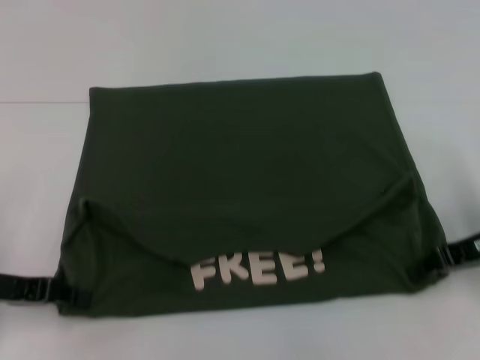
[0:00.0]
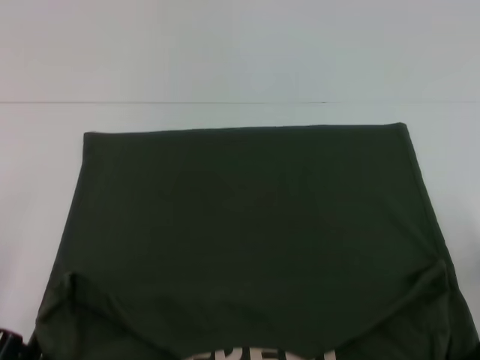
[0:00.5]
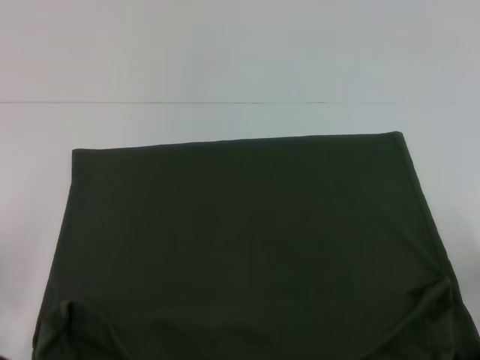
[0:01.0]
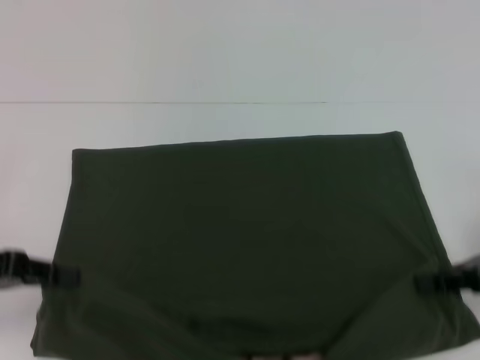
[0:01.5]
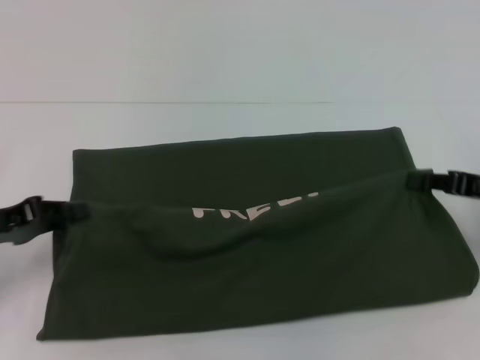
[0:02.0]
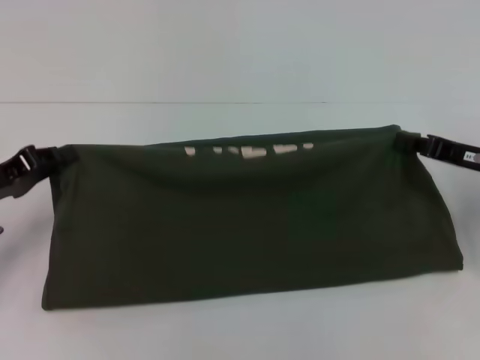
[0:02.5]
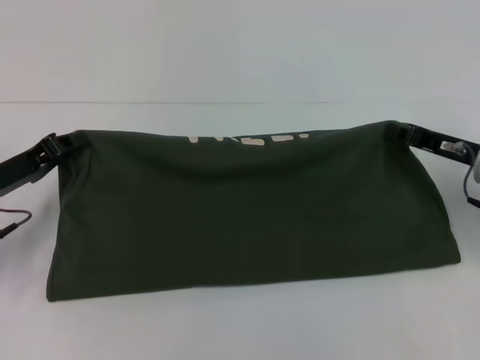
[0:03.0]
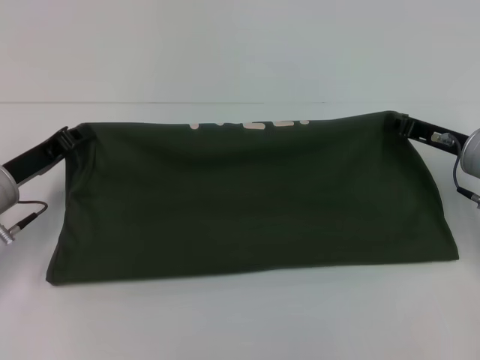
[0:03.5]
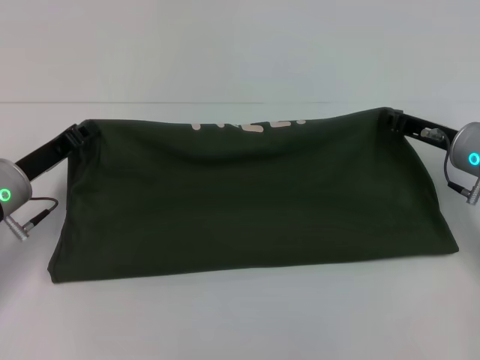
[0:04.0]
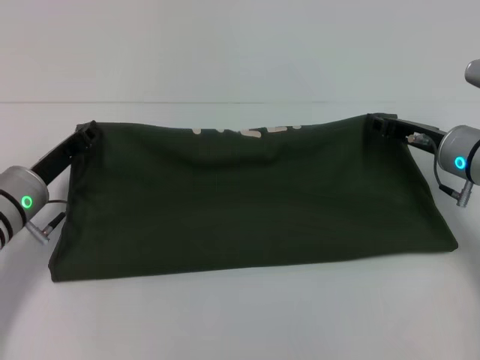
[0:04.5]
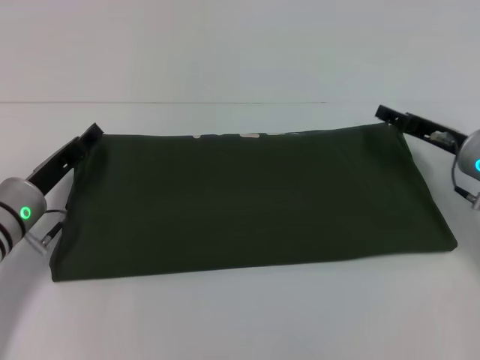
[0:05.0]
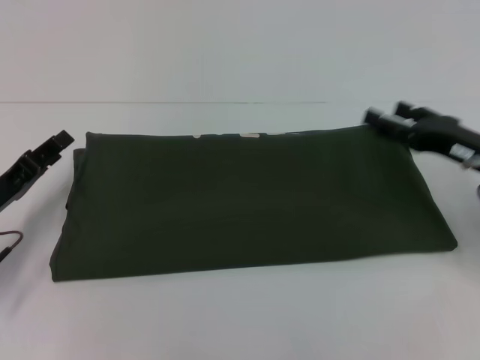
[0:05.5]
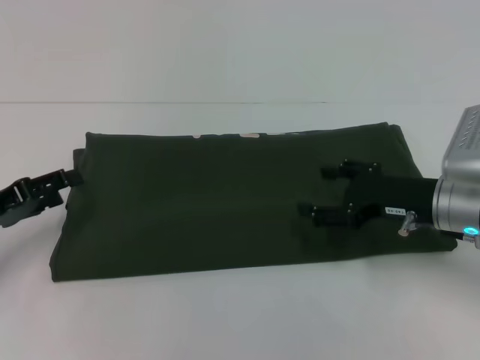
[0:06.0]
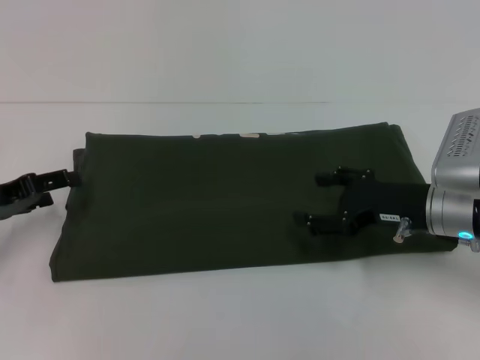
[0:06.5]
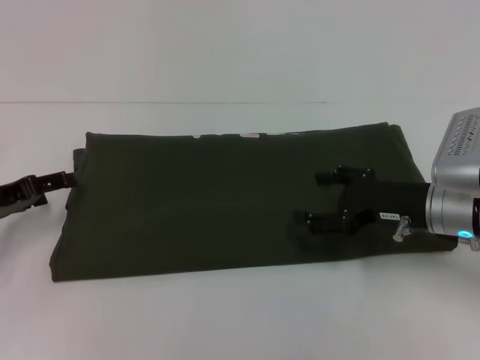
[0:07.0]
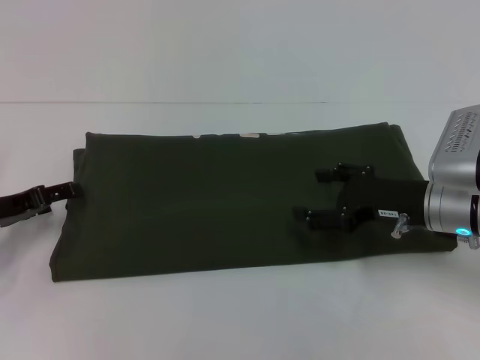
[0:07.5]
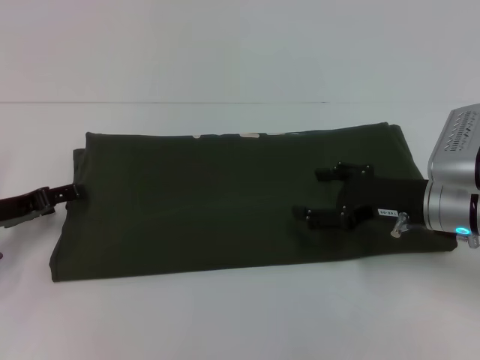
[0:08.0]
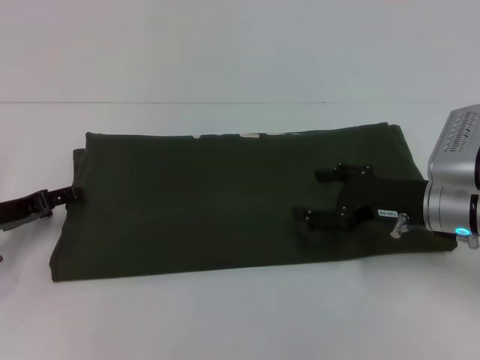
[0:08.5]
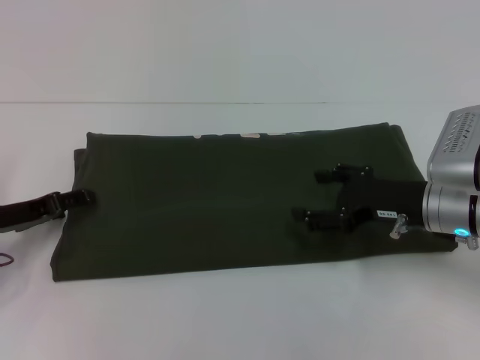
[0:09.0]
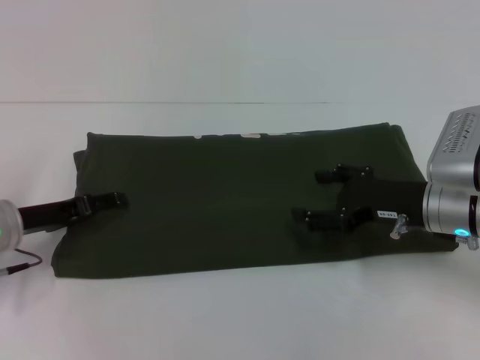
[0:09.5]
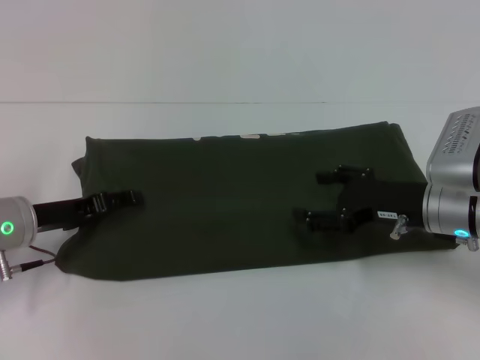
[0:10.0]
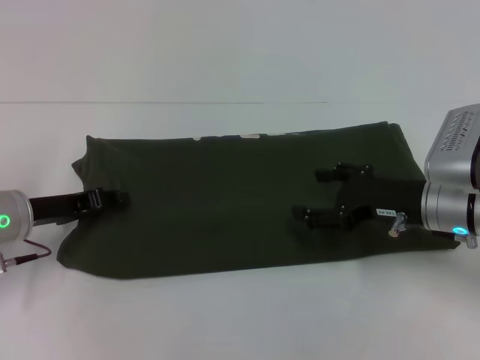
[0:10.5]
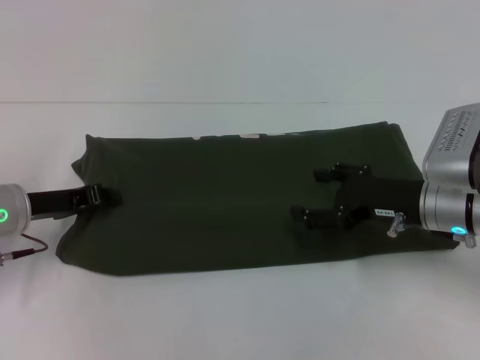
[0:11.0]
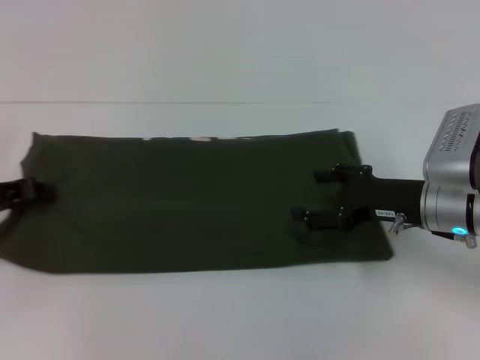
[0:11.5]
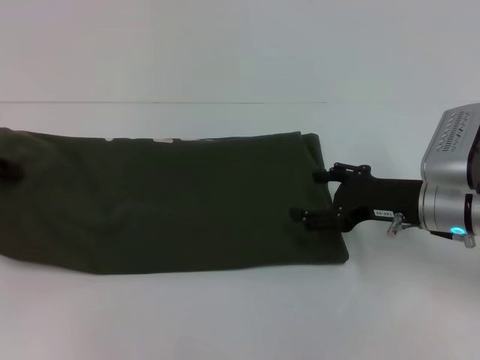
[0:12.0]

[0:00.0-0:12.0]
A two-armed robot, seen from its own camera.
Step, 0:01.5 to 0:05.0: Fold the clothes with your right hand.
0:02.0 to 0:04.0: The left gripper travels to the right and forward by some 10 cm. The right gripper is displaced to the left and forward by roughly 10 cm.
0:04.0 to 0:06.0: The right gripper goes roughly 5 cm backward, and opens its fingers. The left gripper shifts some 10 cm to the left and backward, and opens up.
0:06.0 to 0:08.0: The grippers stay close to where they were, moving slightly.
0:08.0 to 0:10.0: The left gripper heads to the right, covering about 5 cm.
0:10.0 to 0:12.0: The left gripper is displaced to the left and upward by approximately 10 cm, and closes its fingers.

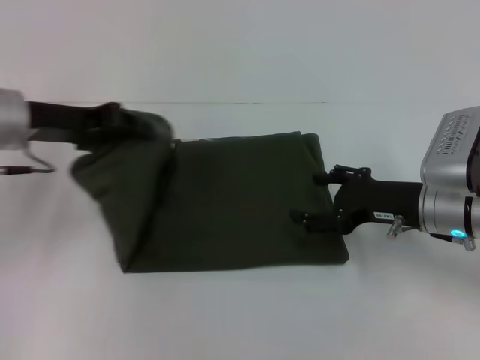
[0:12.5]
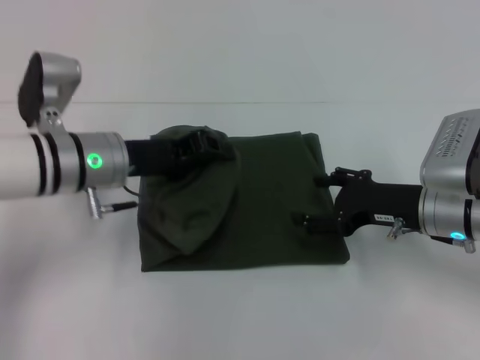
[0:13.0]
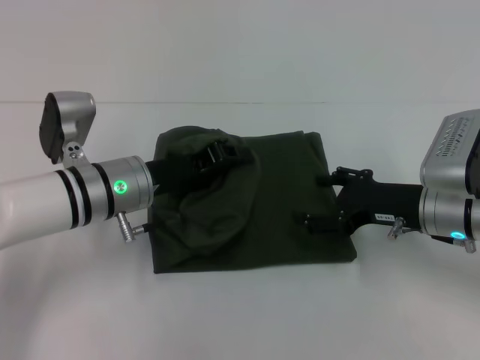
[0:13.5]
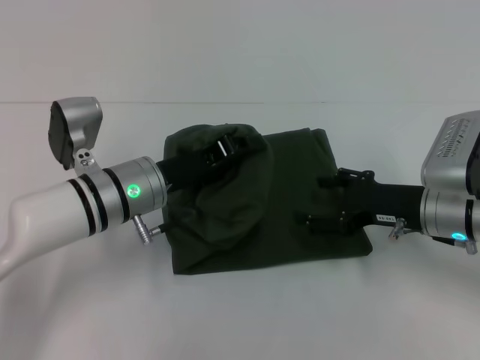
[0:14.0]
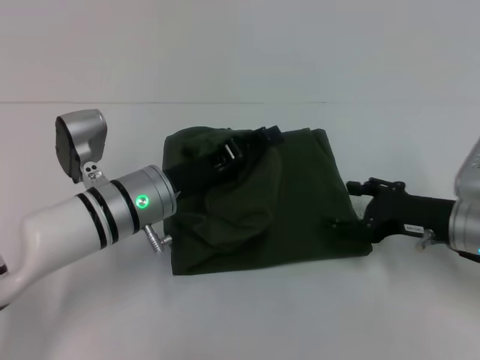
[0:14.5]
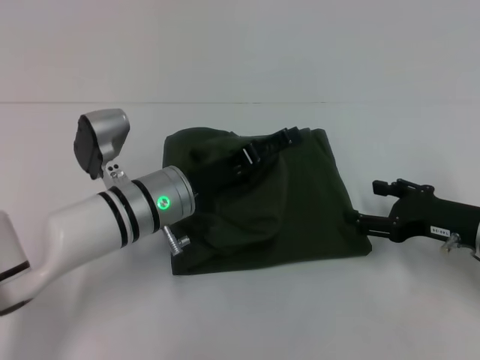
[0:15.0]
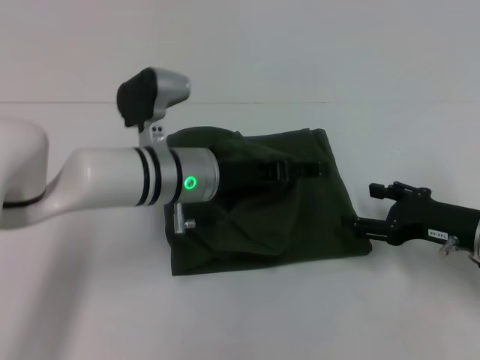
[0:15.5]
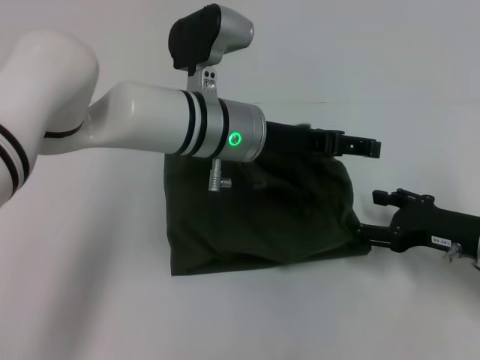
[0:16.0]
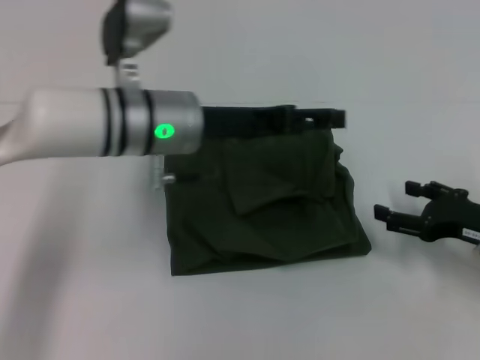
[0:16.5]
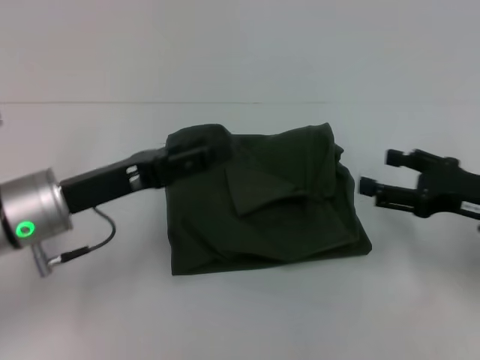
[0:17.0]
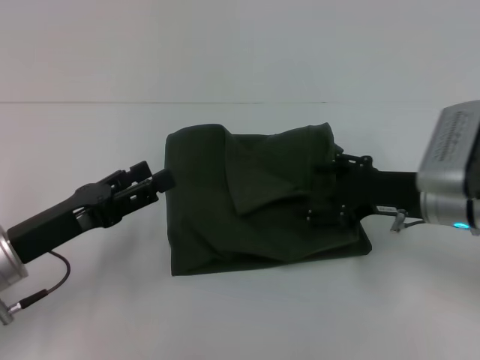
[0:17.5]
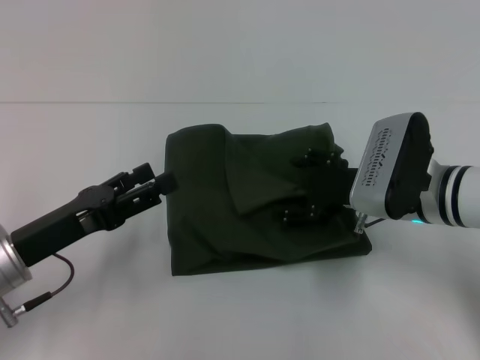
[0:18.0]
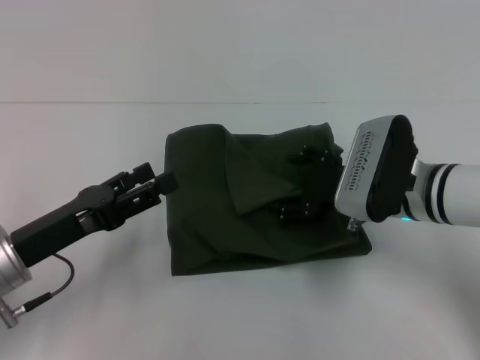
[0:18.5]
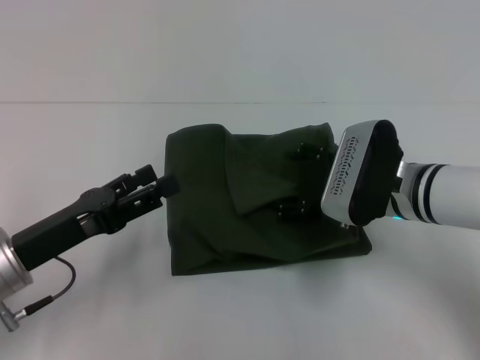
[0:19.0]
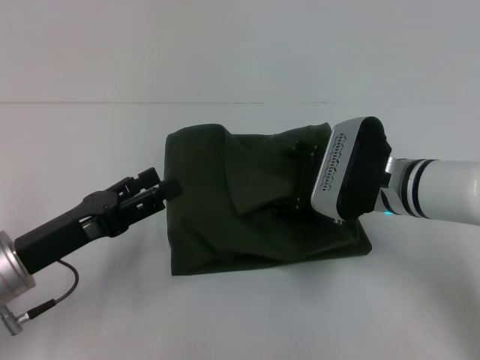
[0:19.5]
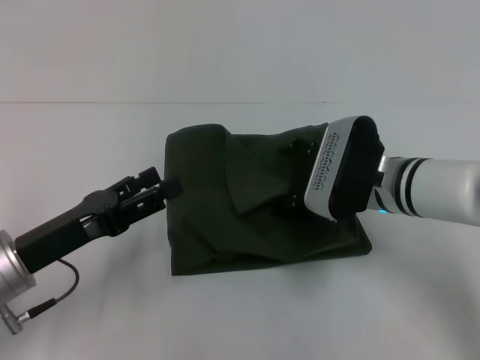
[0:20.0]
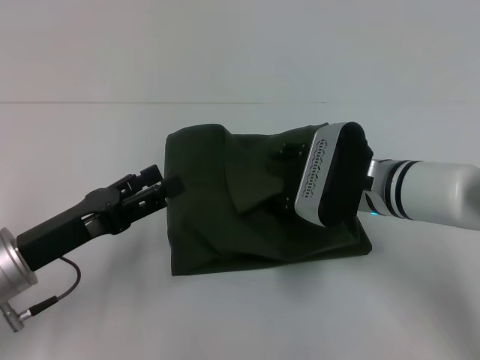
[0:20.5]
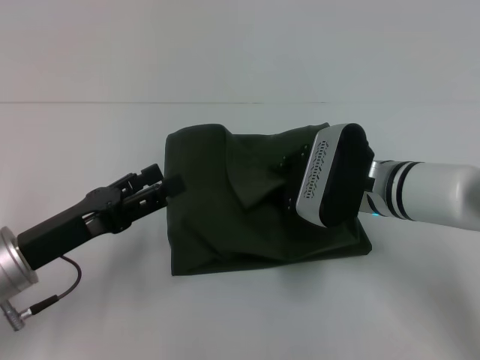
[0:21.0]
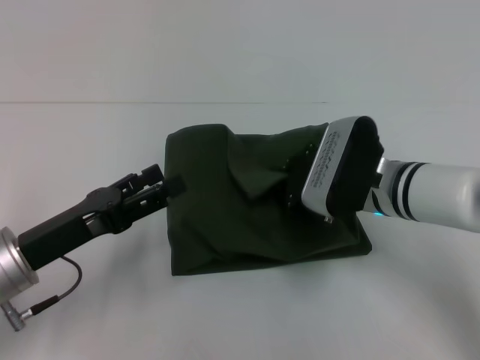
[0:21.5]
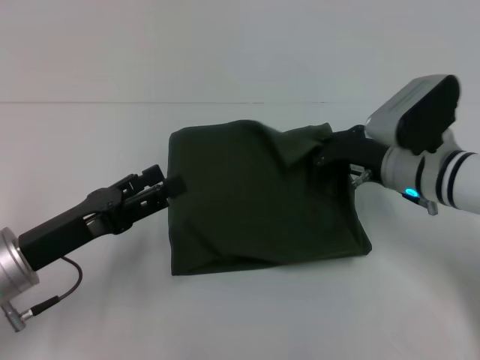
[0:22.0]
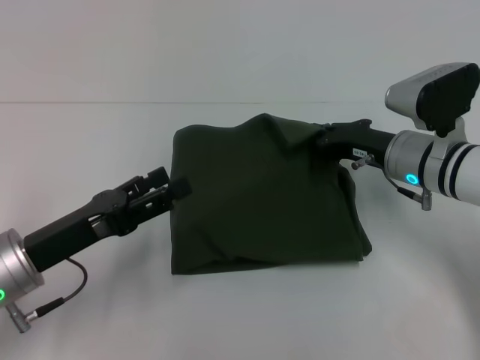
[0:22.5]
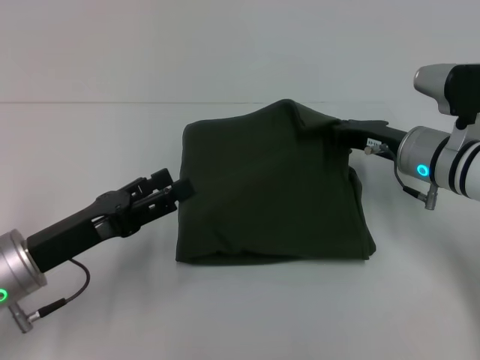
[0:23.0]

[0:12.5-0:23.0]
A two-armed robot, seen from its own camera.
Step, 0:12.5 to 0:16.5: Fold the clothes with your left hand.
0:12.5 to 0:14.5: The left gripper moves to the right and downward, roughly 15 cm.
0:14.5 to 0:16.5: The left gripper heads upward, covering roughly 10 cm, and opens its fingers; the right gripper is displaced to the right by some 5 cm.
0:16.5 to 0:19.0: The right gripper travels to the left and forward by approximately 15 cm; the left gripper shifts approximately 20 cm to the left, backward and downward.
0:19.0 to 0:21.0: The right gripper closes its fingers.
0:21.0 to 0:23.0: The right gripper shifts some 5 cm to the right, and closes.

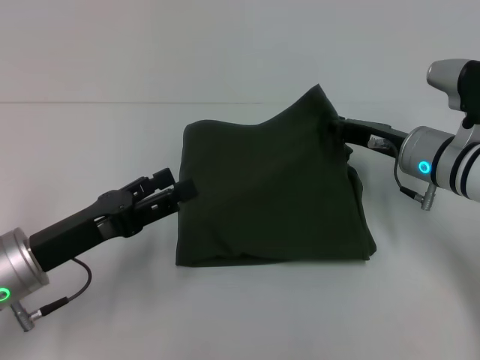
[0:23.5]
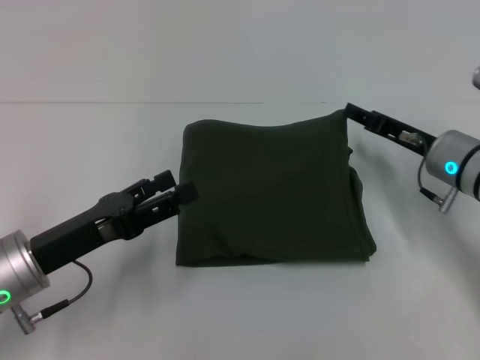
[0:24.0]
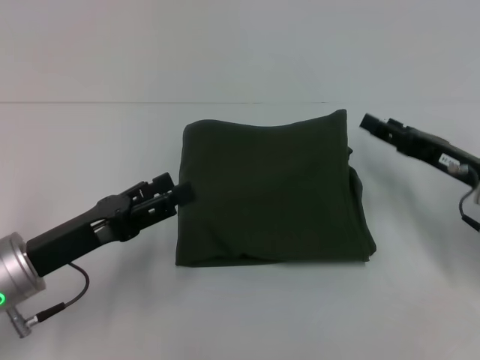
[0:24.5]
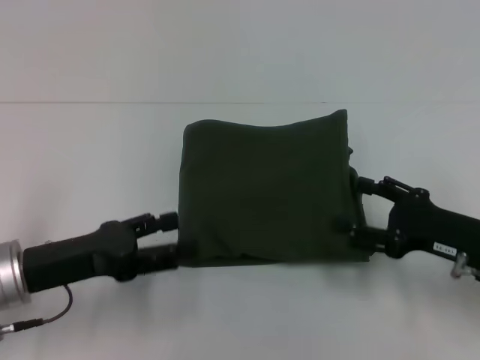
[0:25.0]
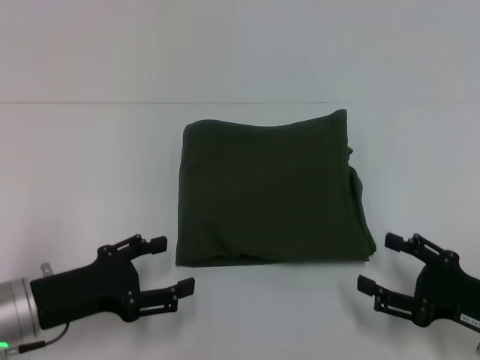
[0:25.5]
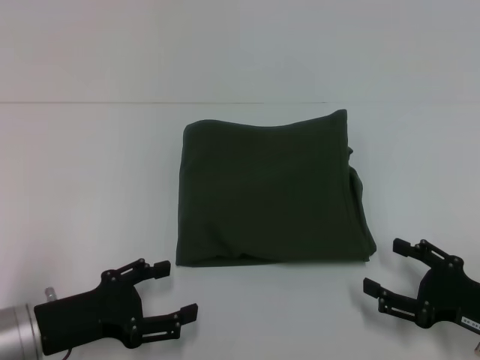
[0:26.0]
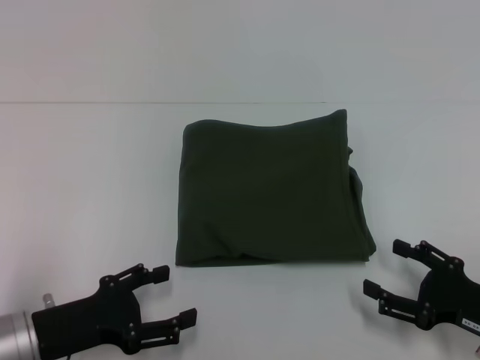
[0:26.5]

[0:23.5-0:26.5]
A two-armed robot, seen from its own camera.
0:23.5 to 0:25.0: The right gripper travels backward and to the right by approximately 15 cm, and opens up.
0:25.0 to 0:26.5: The left gripper shifts by about 5 cm. Meanwhile the right gripper is displaced backward by approximately 5 cm.
